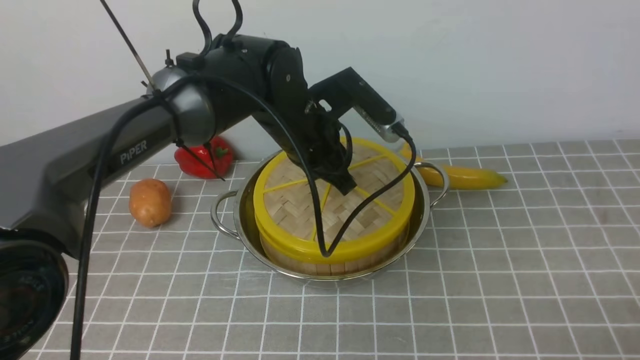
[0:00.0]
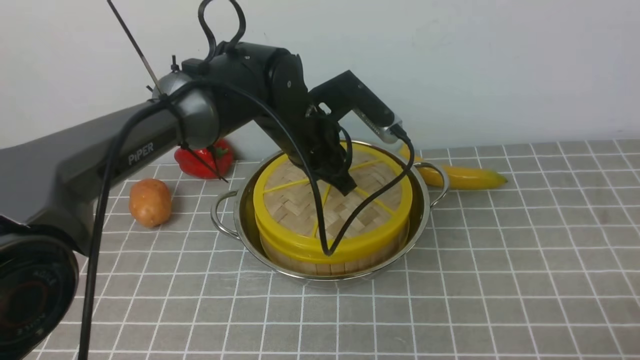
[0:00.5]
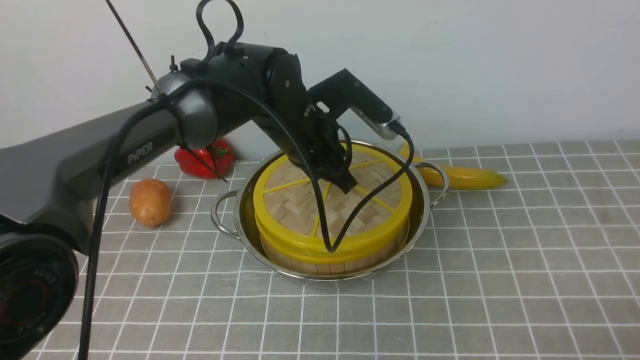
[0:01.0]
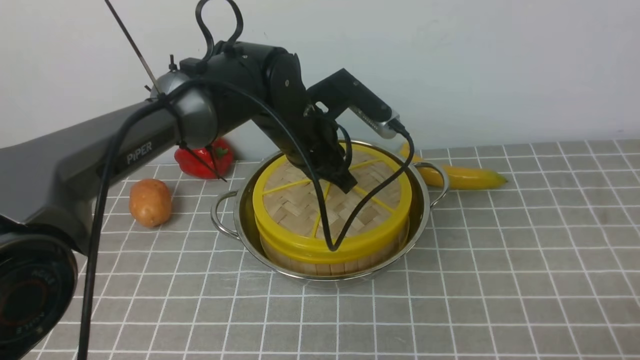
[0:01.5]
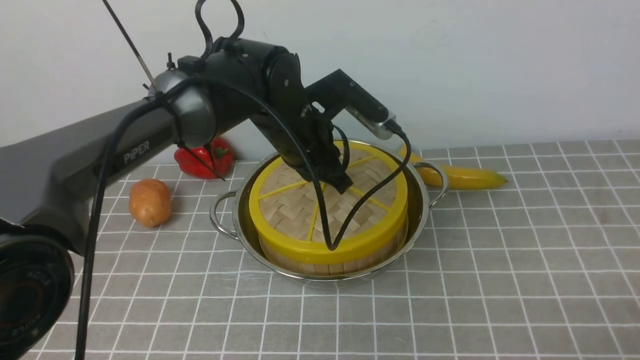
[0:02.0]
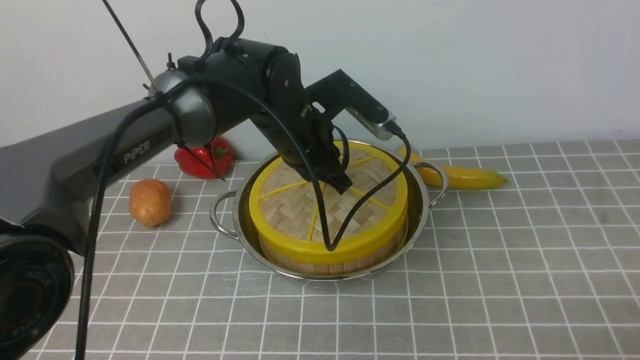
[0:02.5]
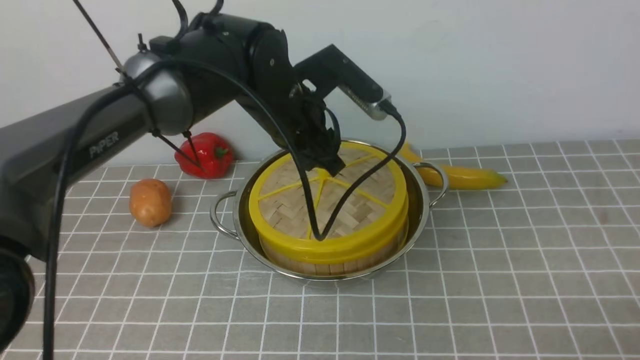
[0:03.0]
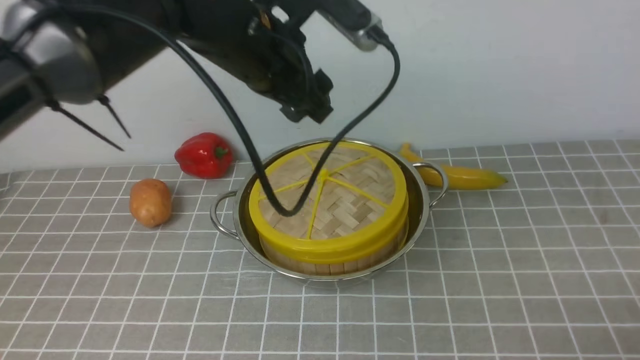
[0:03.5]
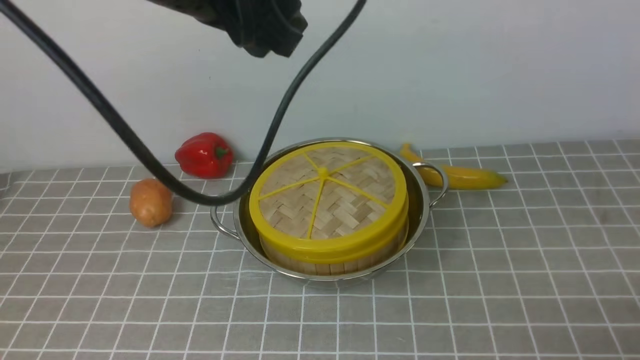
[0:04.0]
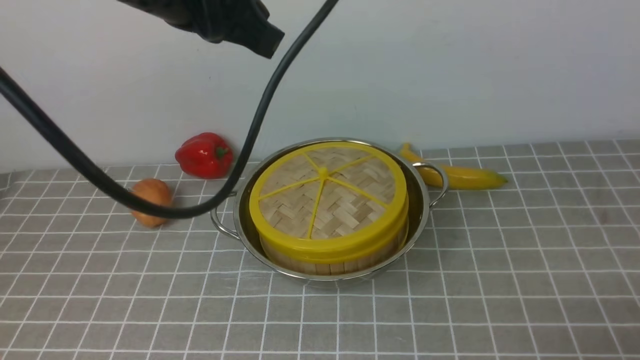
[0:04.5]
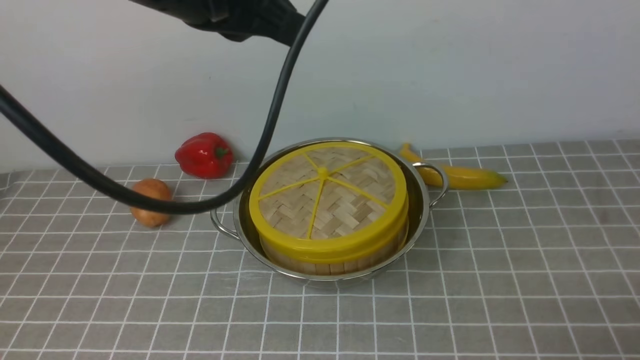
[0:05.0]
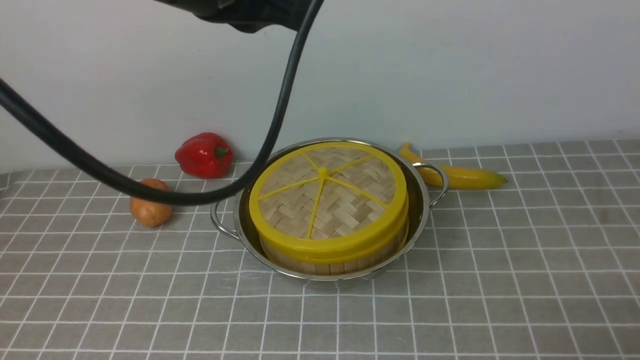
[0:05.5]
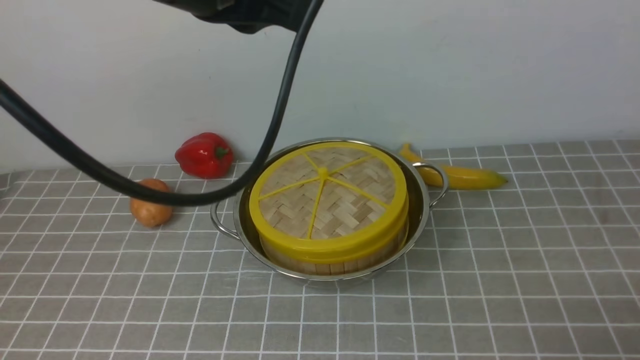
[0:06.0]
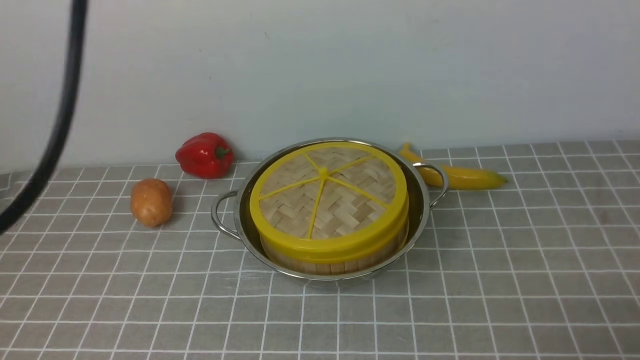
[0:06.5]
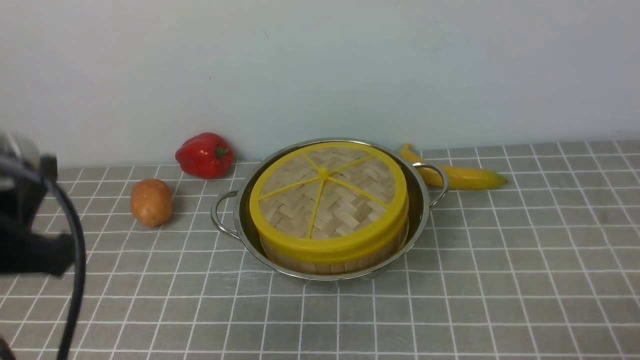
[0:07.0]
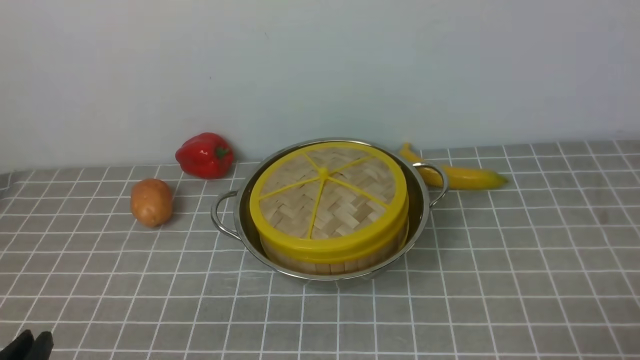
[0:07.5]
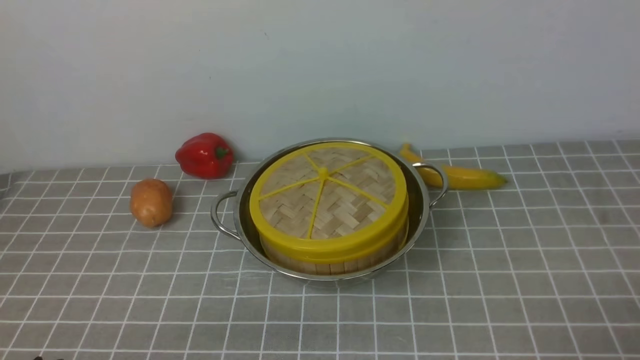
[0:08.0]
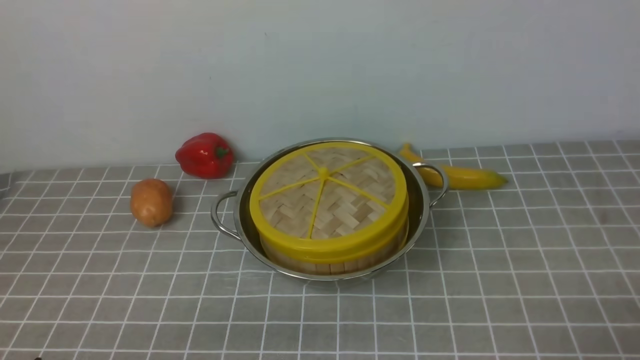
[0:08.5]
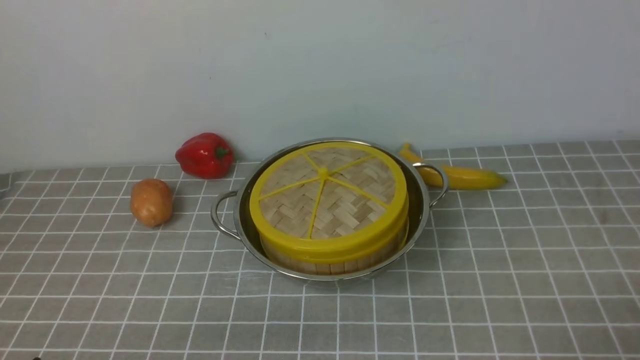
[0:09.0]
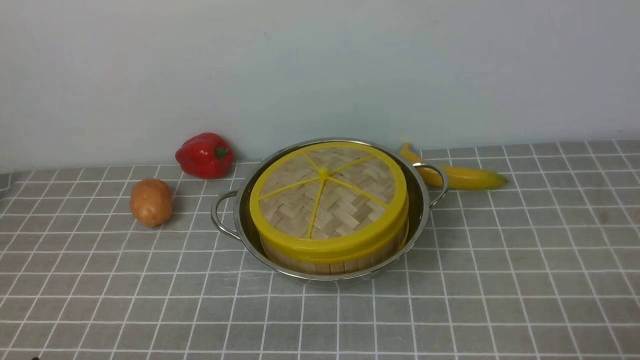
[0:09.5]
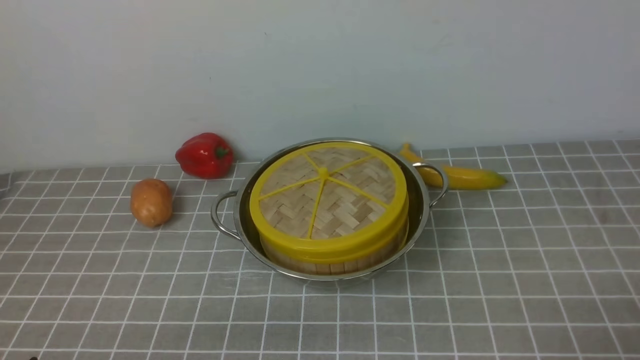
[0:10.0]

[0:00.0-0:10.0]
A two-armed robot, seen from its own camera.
Task of the whole recording: place the steamer in the pot on the grey tablecloth, and put the lid on the steamer.
Step, 0:00.0 to 0:03.0: use the left arm to place the steamer lid on the steamer.
0:00.0 to 0:02.0: The grippers move only a little.
0:02.0 to 0:04.0: The left gripper shifts approximately 20 cm upward and backward, and opens its fingers.
0:04.0 to 0:06.0: The left gripper changes place by approximately 5 cm, and closes its fingers.
0:06.0 to 0:08.0: The left gripper shifts roughly 40 cm downward, backward and to the left.
0:08.0 to 0:10.0: Both grippers stay about where they are.
